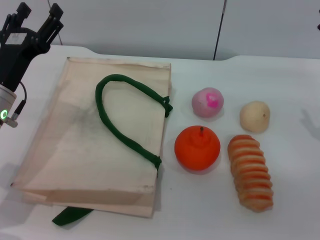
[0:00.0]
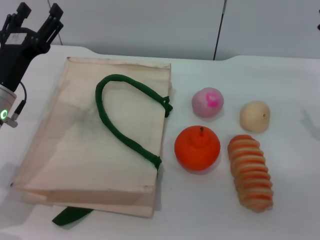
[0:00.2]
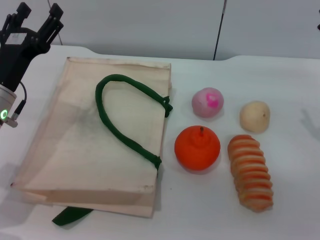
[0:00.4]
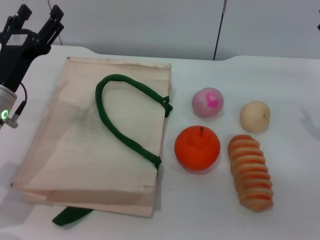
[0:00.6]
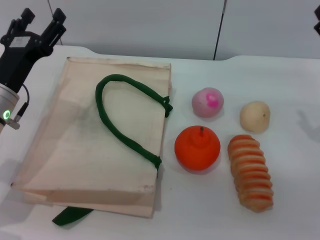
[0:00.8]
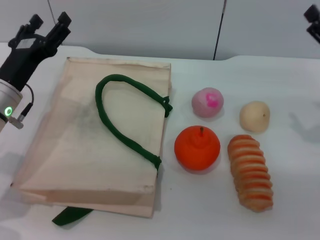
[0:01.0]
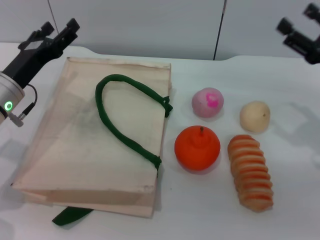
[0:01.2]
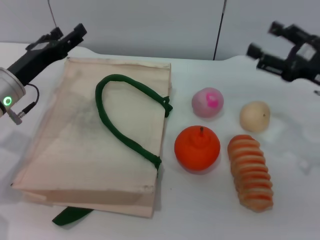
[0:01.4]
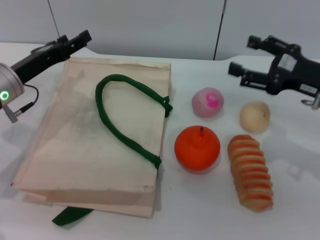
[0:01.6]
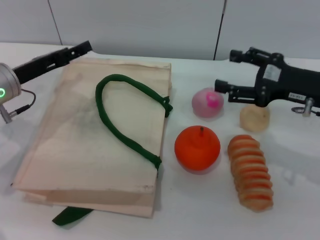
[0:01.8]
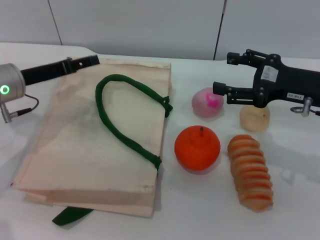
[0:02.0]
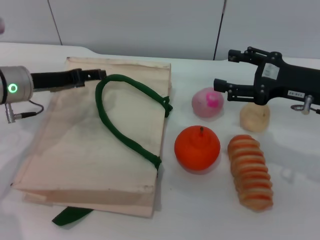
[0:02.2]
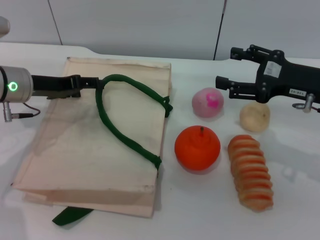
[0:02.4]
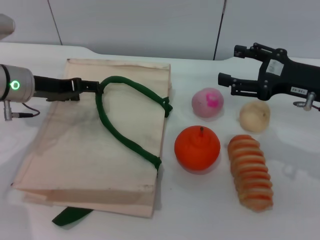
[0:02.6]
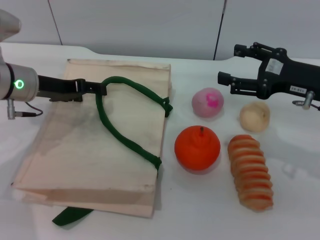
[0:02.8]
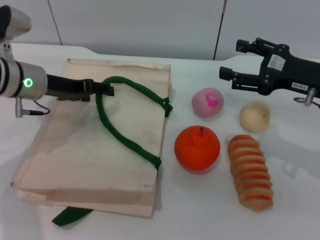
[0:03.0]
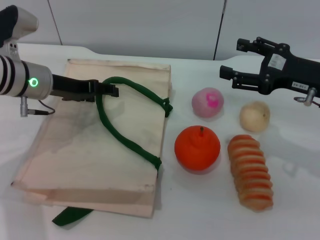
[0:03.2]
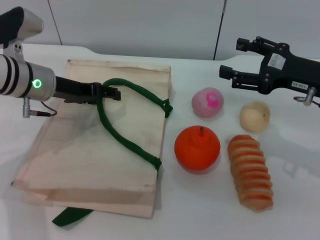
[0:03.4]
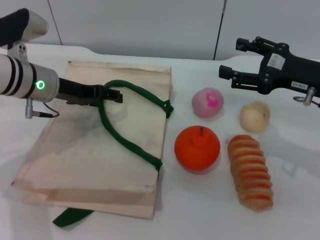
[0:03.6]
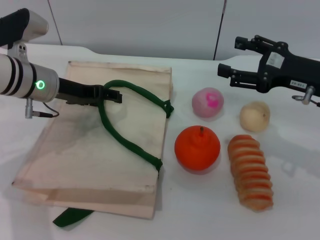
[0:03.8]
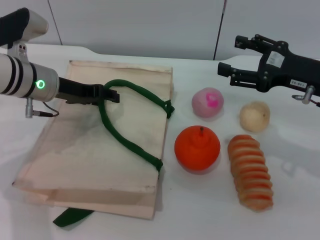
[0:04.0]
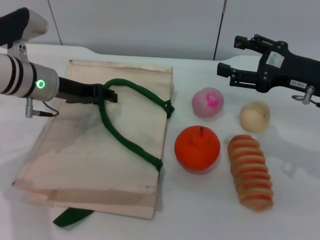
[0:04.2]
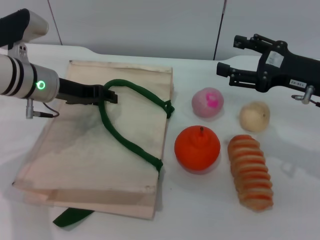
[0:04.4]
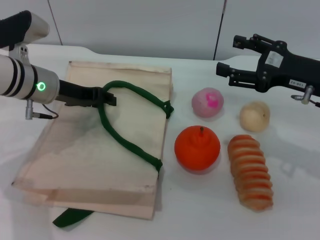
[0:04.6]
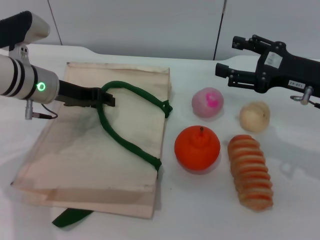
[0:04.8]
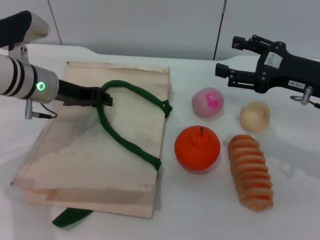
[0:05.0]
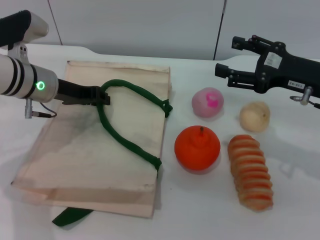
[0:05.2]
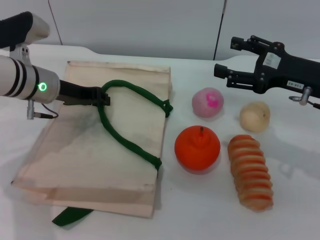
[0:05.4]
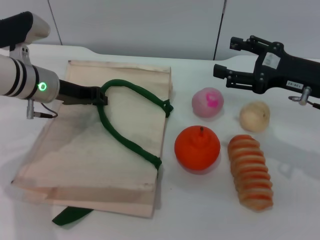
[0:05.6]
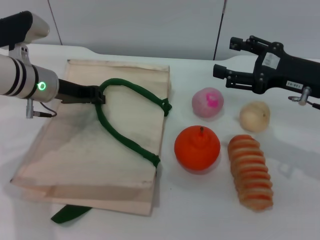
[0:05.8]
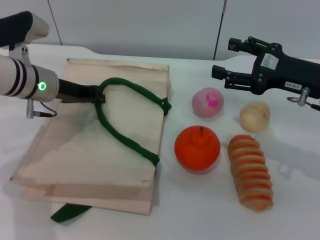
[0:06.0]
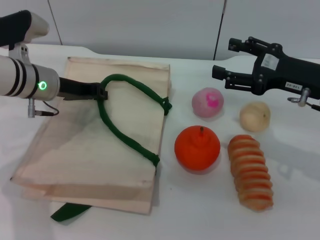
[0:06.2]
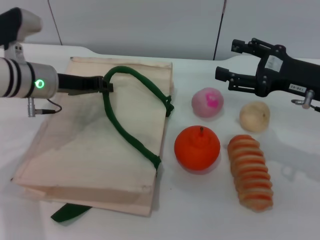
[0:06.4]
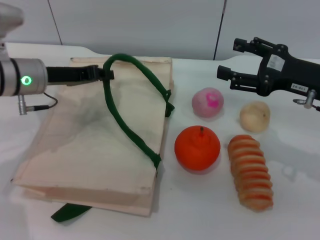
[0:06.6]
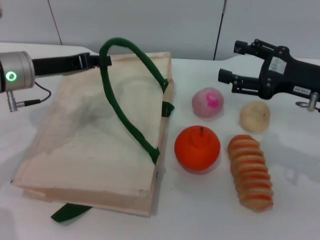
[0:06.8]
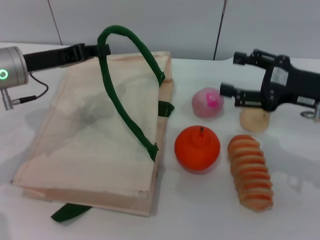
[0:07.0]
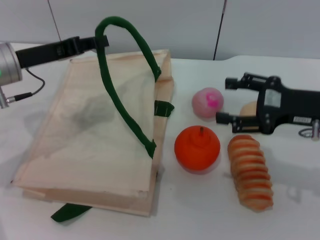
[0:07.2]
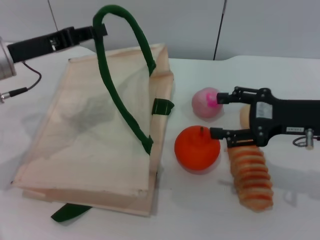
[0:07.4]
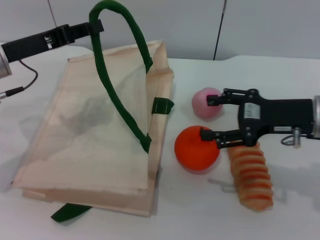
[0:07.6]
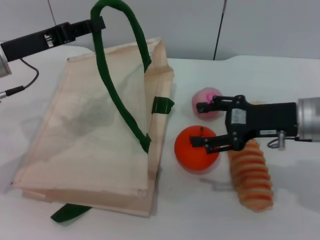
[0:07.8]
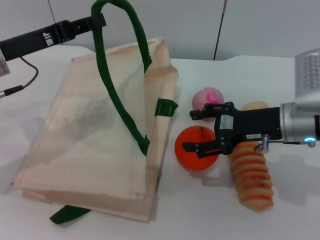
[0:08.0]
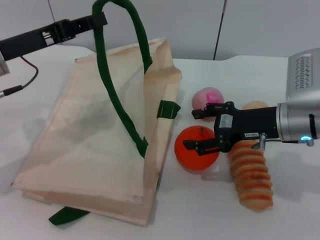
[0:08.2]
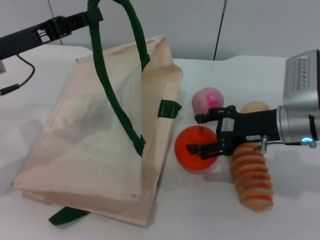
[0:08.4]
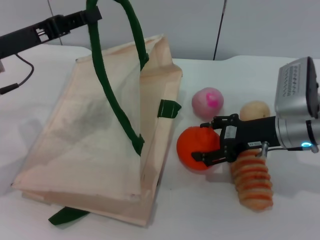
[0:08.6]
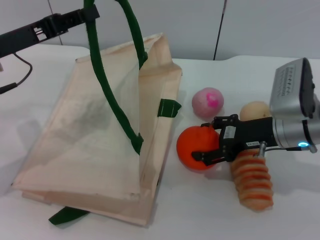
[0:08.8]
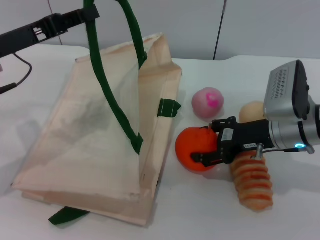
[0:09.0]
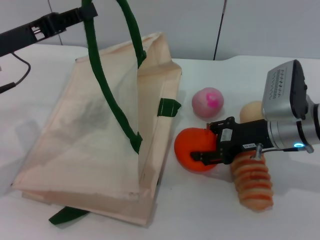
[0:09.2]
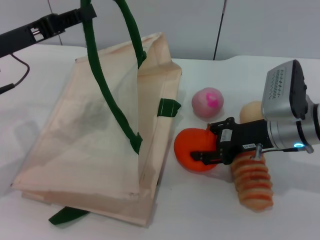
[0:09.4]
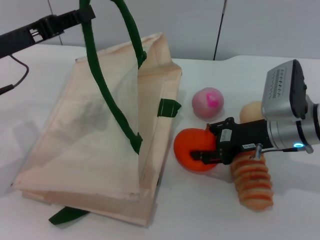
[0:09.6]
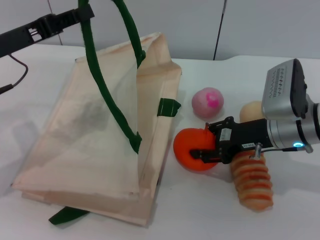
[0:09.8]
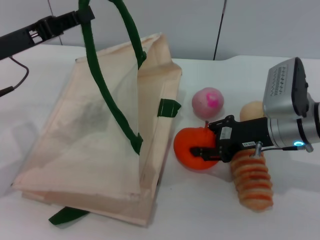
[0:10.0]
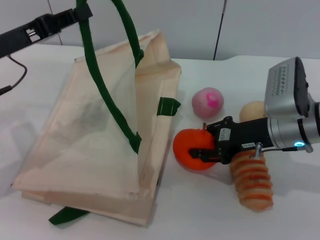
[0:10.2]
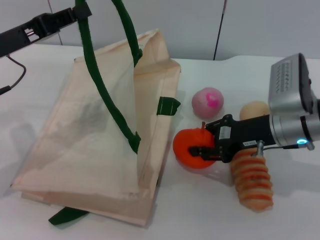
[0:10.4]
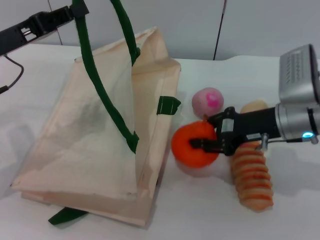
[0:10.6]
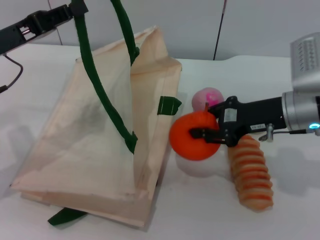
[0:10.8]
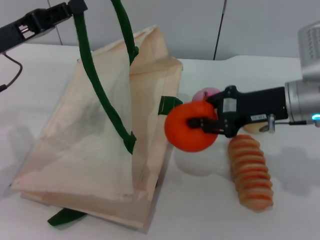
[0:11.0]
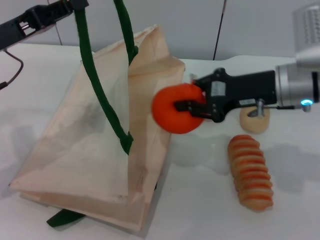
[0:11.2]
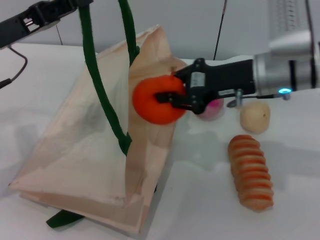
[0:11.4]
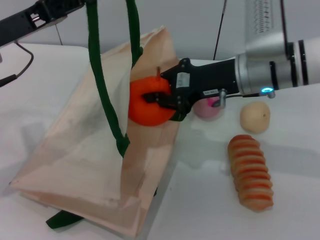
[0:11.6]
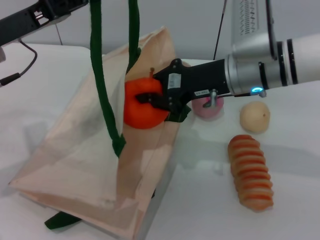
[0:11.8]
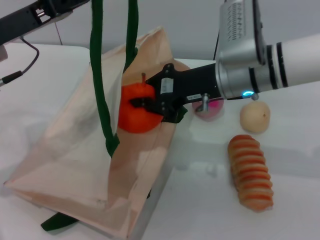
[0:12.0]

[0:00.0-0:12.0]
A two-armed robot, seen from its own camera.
Task of the whole recording: pick up the orange and peach from the table and place it in the white handbag.
Step, 0:00.0 to 0:06.6: Lift the woven bag with the left gripper to open it.
Step, 0:06.8 to 0:10.8: Pick up the orange with the right gripper.
0:00.0 to 0:01.6: The right gripper moves about 5 cm.
0:01.6 to 0:03.0: The left gripper shifts by roughly 5 cm.
0:03.0 to 0:04.4: The left gripper closes.
0:04.4 to 0:06.0: The left gripper closes up.
0:06.0 to 0:07.6: The left gripper shifts approximately 5 cm backward and upward.
0:07.6 to 0:09.0: The right gripper ends up approximately 5 cm from where it was.
0:09.0 to 0:10.4: The right gripper closes up.
0:10.4 to 0:12.0: The right gripper travels to the left and upward by some 10 cm.

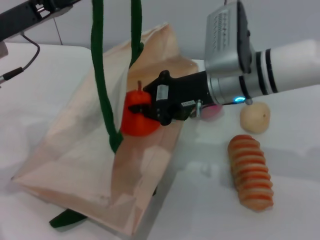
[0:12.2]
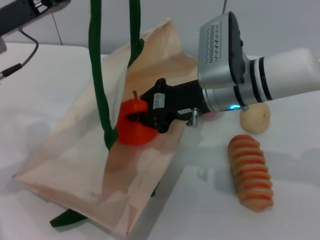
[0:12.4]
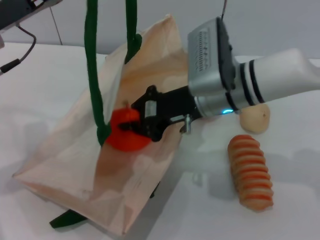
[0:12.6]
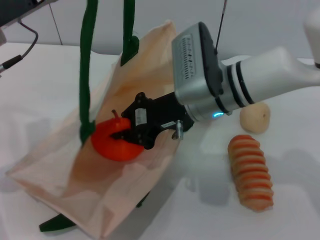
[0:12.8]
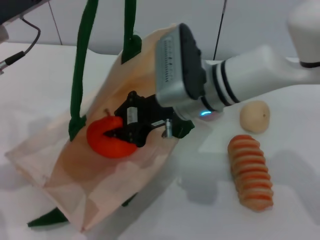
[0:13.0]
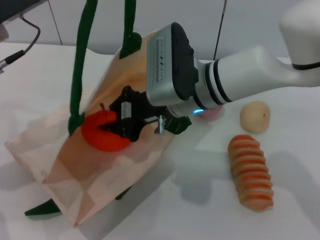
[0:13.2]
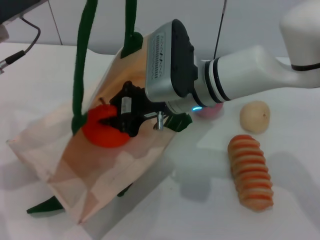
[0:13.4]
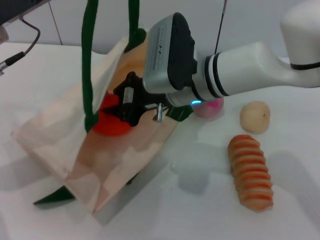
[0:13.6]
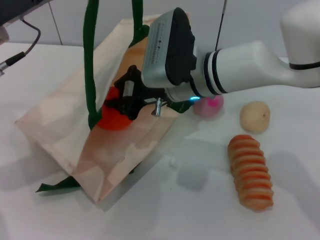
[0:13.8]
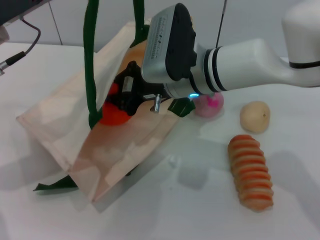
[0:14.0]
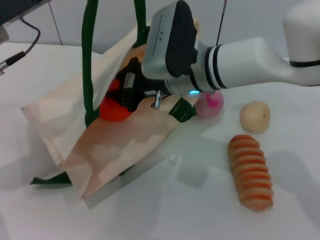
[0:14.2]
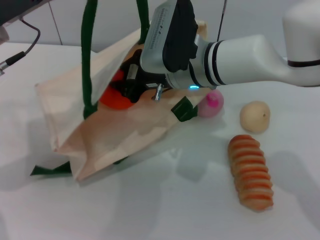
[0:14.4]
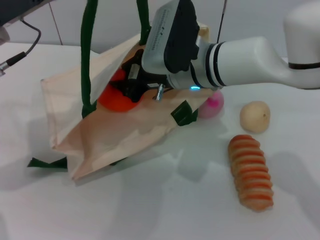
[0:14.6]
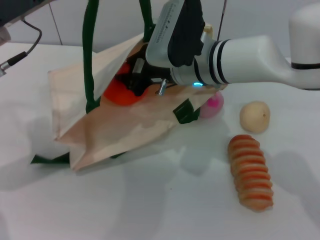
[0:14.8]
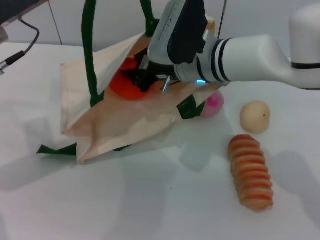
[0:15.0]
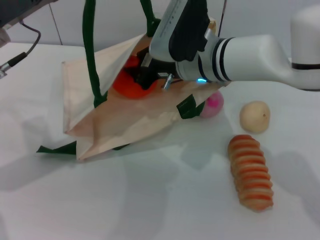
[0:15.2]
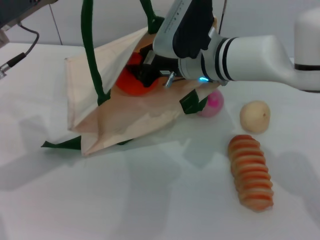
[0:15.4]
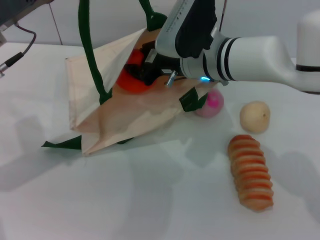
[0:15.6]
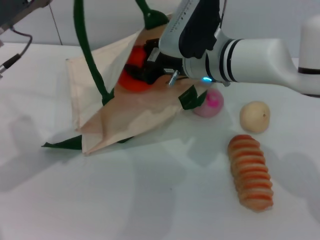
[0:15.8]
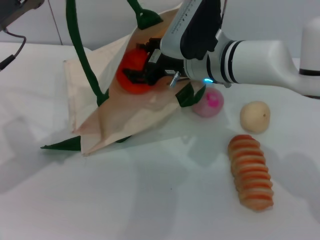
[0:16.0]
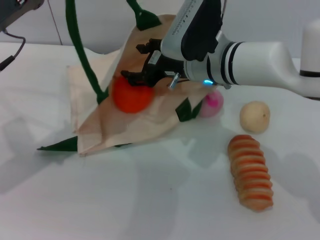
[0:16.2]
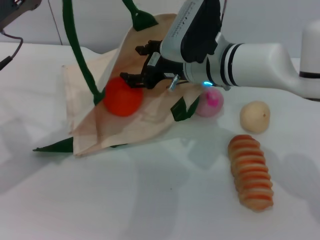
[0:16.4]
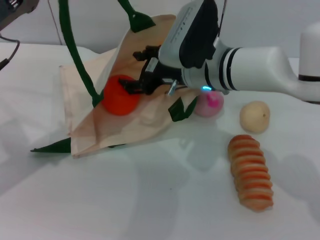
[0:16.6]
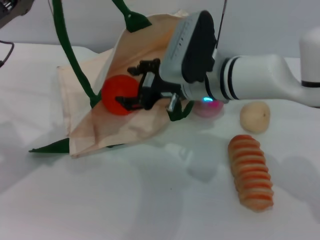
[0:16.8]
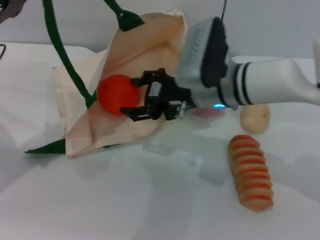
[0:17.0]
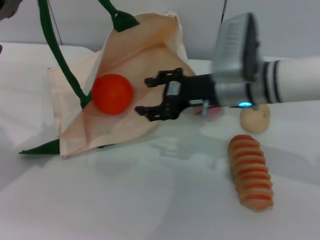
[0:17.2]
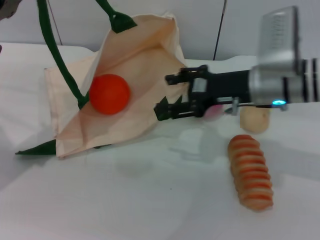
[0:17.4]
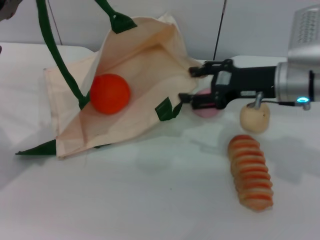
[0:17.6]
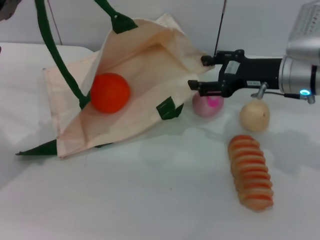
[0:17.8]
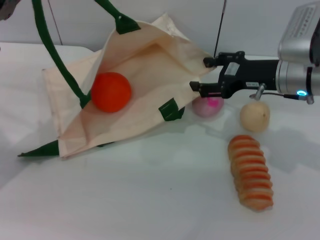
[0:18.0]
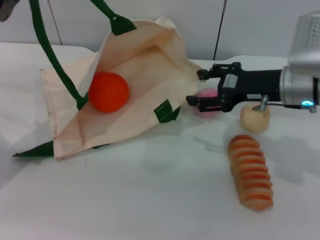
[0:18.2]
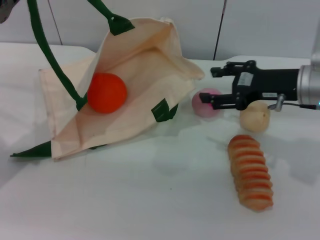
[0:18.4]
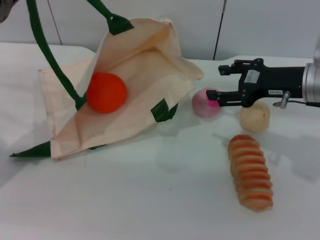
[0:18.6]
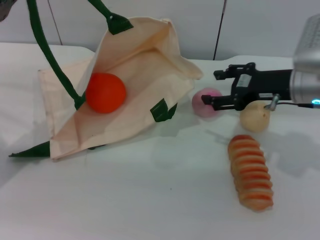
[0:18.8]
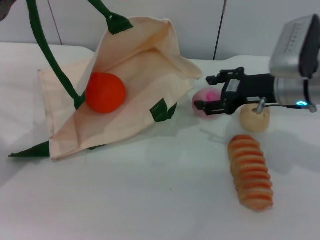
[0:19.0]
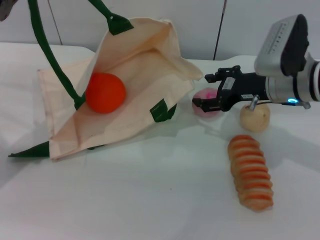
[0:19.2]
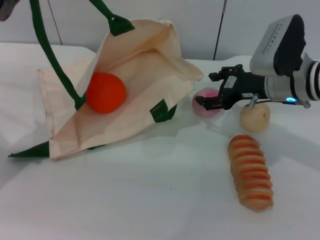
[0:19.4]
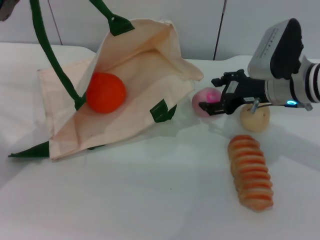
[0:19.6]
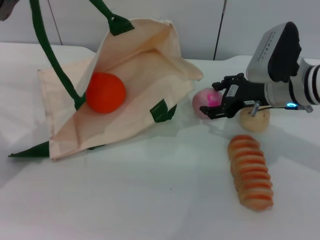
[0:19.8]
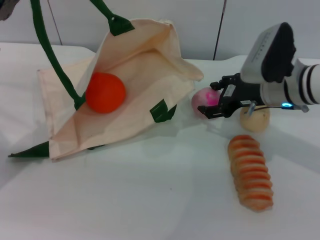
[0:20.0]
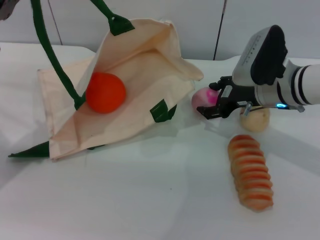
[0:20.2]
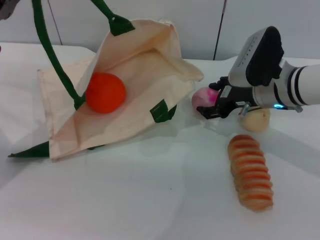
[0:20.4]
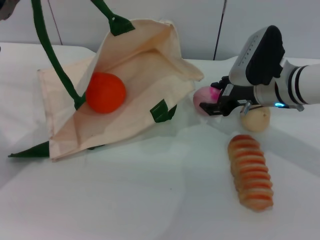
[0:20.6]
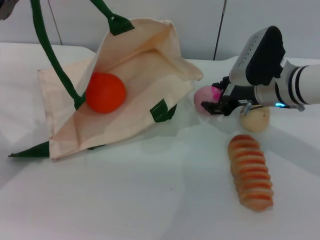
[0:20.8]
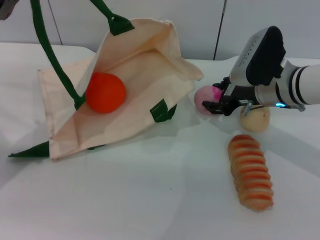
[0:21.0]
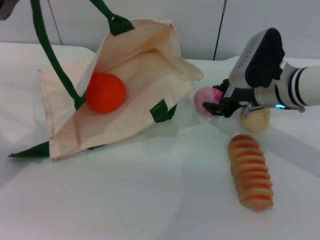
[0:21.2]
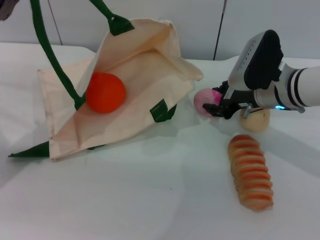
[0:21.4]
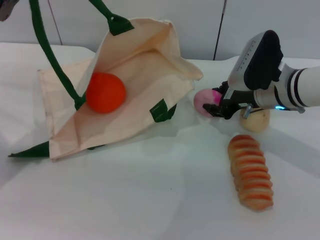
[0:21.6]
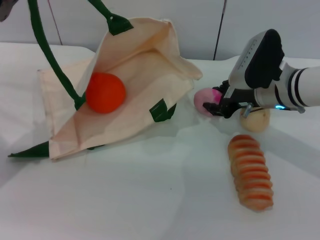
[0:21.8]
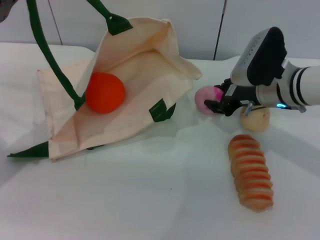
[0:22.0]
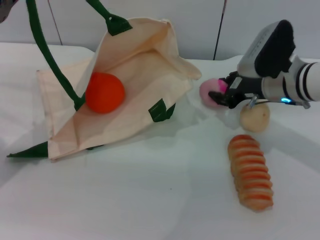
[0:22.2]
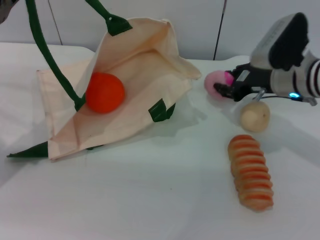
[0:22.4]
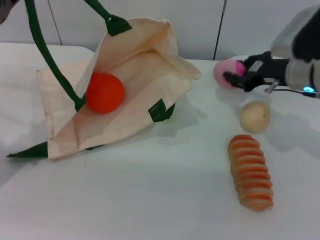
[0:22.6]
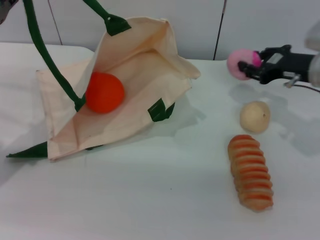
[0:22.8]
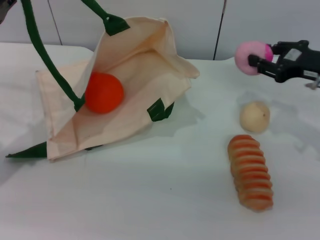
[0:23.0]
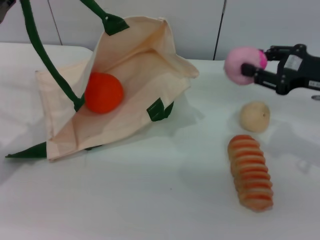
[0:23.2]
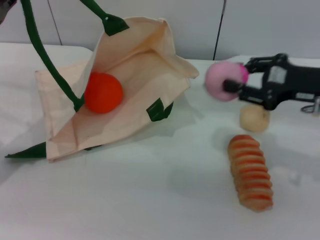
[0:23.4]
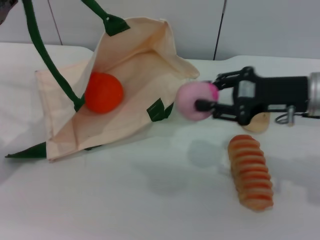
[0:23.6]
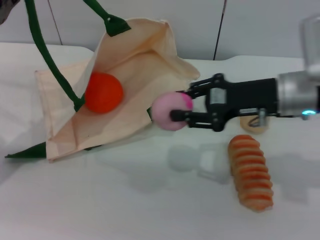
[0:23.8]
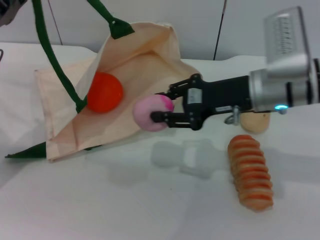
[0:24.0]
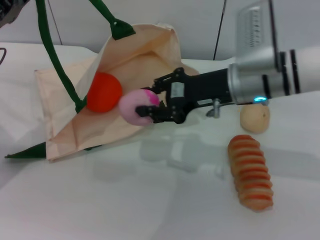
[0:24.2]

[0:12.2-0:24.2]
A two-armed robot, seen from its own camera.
Task of the whole recording: pick up the orange and peach from the table and place it in the white handbag.
Step, 0:12.2 to 0:17.2: Place the orange into the woven bag with the right gripper.
Step, 0:17.4 to 0:22.6: Pick up the peach with the right gripper.
0:12.2 to 0:13.8: The right gripper is displaced to the left by about 5 cm.
0:15.2 to 0:16.6: The right gripper opens its fingers.
0:16.6 to 0:18.2: The right gripper goes approximately 15 cm to the right.
0:19.8 to 0:21.2: The grippers move only a little.
0:21.2 to 0:22.6: The right gripper shifts by roughly 5 cm.
0:22.6 to 0:24.2: The right gripper heads to the left, covering roughly 10 cm.
